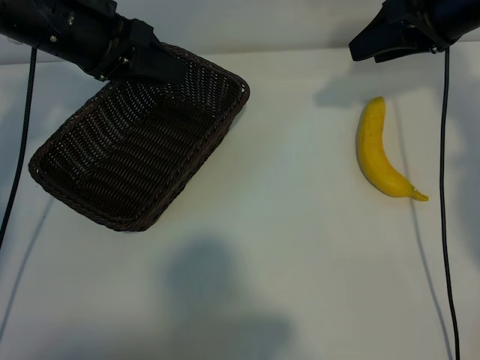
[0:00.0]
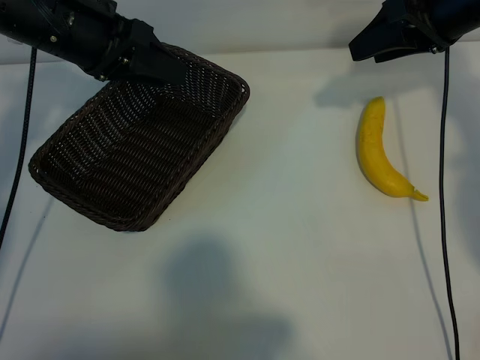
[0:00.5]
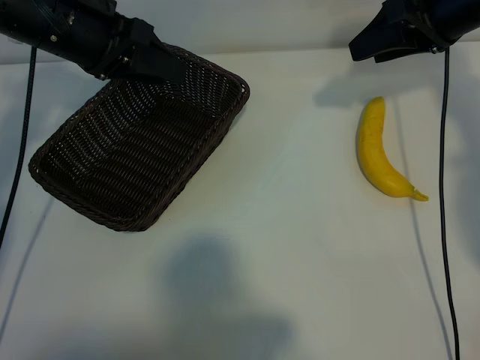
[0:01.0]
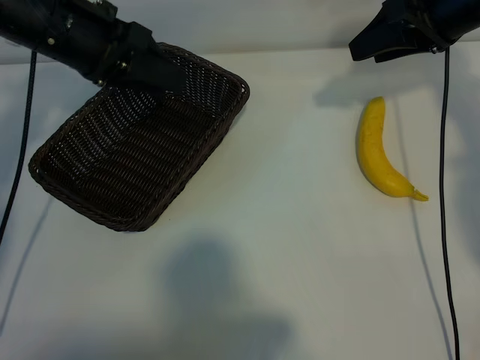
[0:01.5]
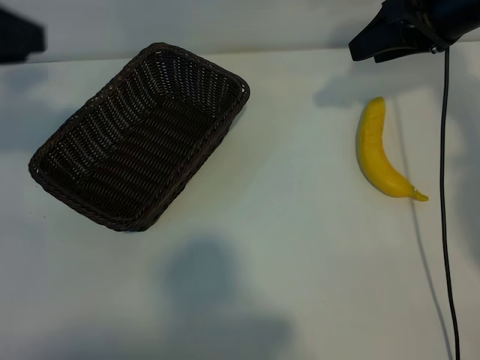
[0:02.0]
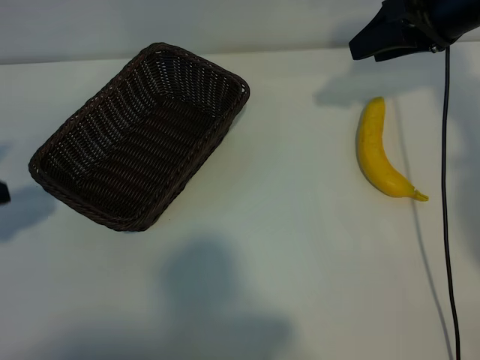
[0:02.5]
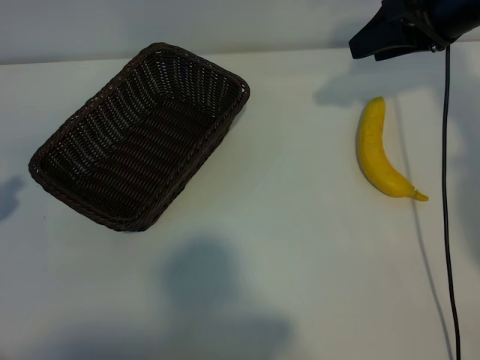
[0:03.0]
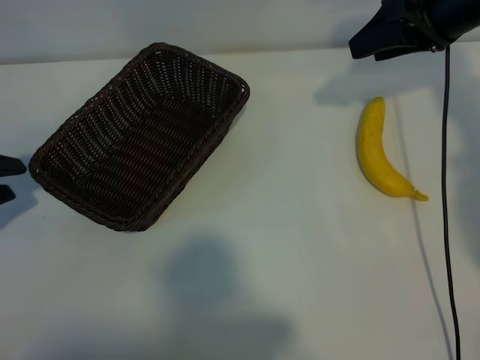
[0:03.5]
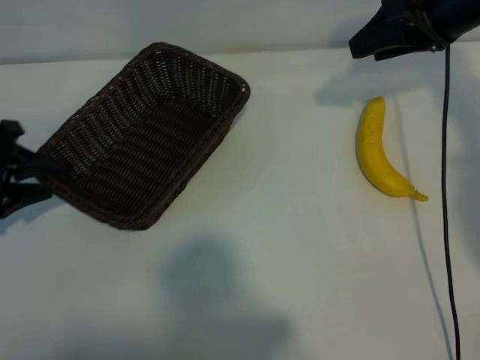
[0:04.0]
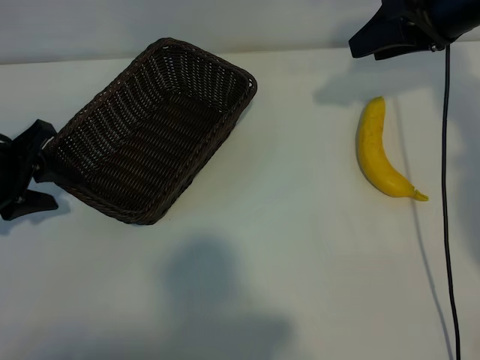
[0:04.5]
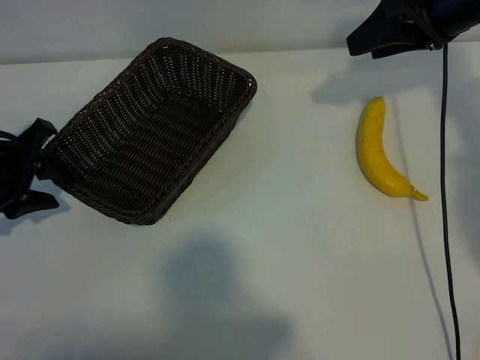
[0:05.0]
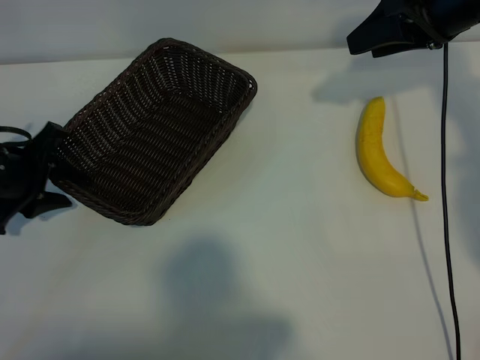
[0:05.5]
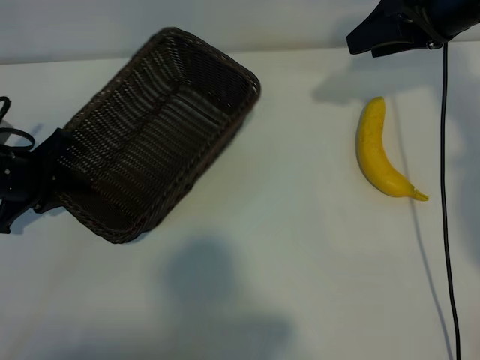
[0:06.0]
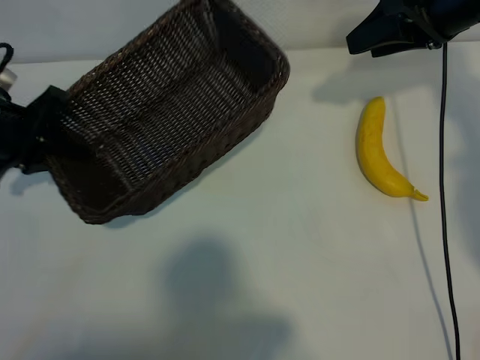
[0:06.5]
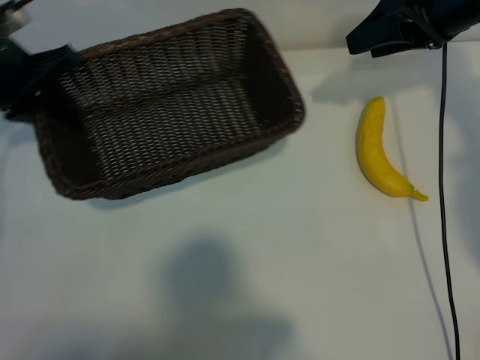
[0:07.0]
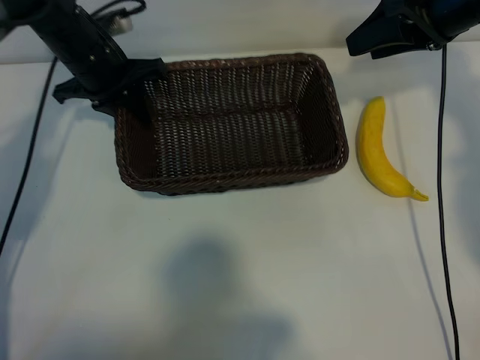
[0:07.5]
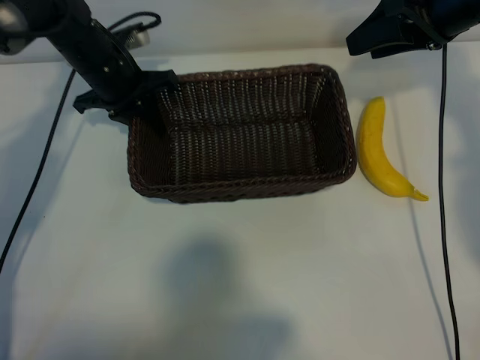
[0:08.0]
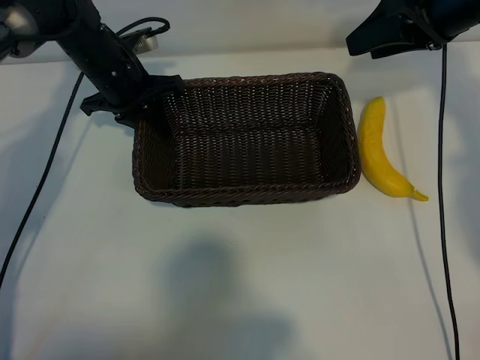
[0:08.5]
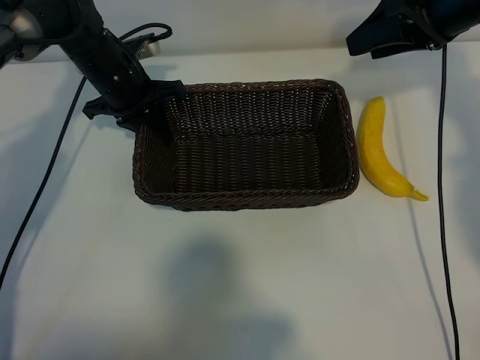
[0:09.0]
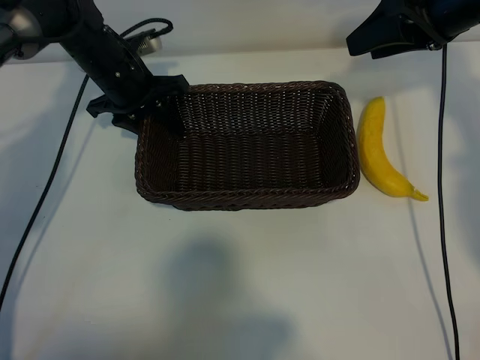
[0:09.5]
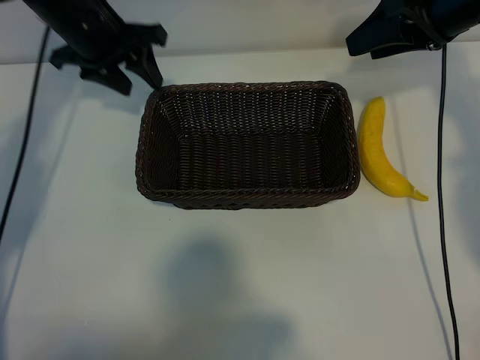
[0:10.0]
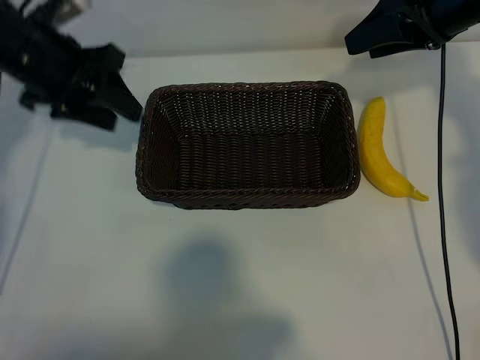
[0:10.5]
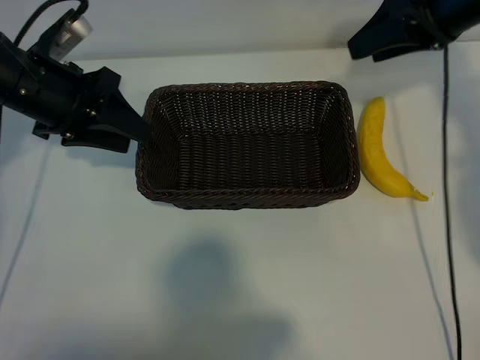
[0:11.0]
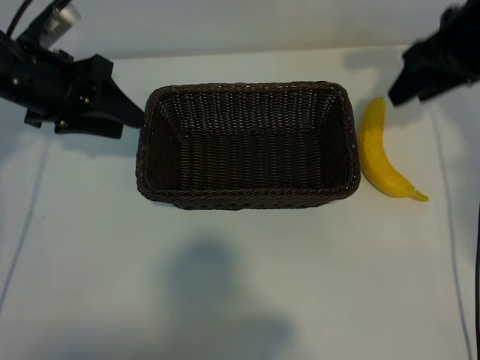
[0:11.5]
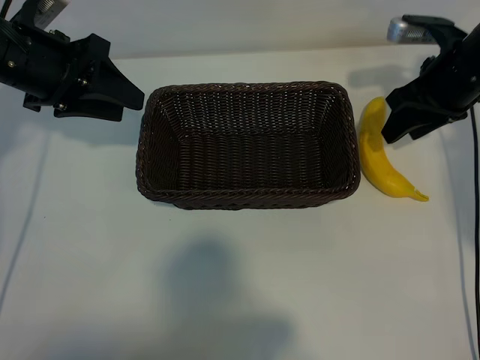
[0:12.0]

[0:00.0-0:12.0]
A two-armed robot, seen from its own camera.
Task of the whole recording: pick up the banana and put it into the basket.
Step, 0:01.0 to 0:06.0: Grasp the basket with the left gripper.
Step, 0:06.5 to 0:09.5: Place the basket in the center of the table with the left gripper.

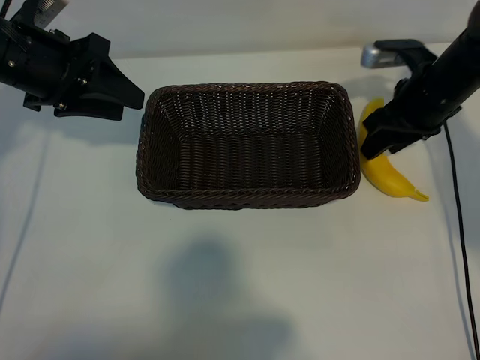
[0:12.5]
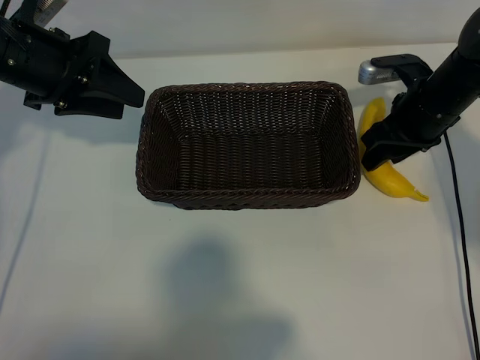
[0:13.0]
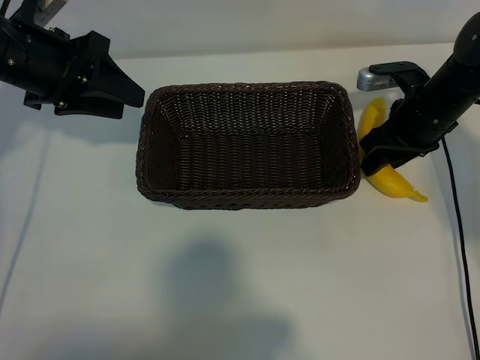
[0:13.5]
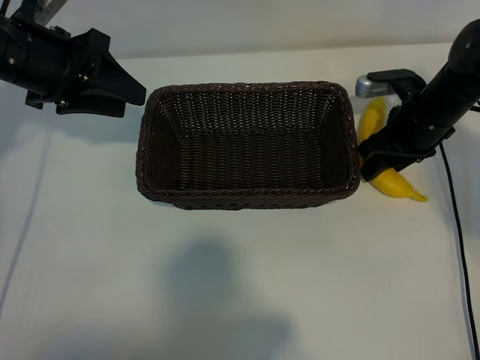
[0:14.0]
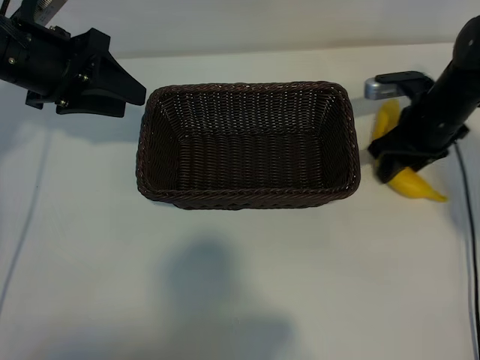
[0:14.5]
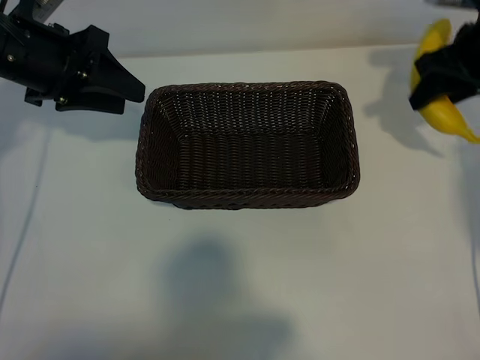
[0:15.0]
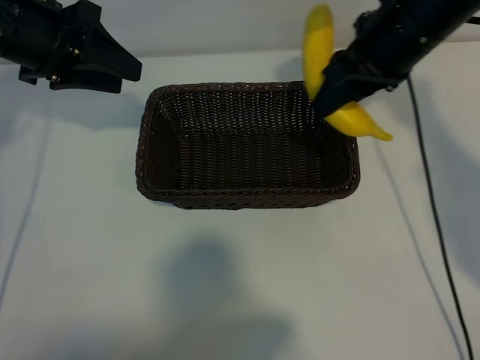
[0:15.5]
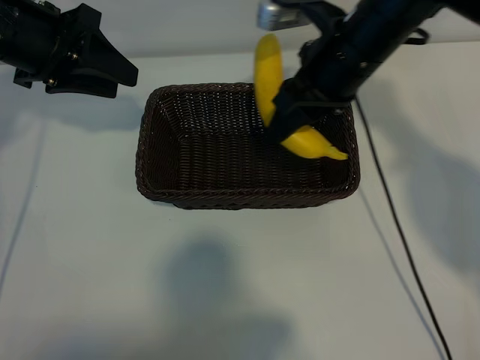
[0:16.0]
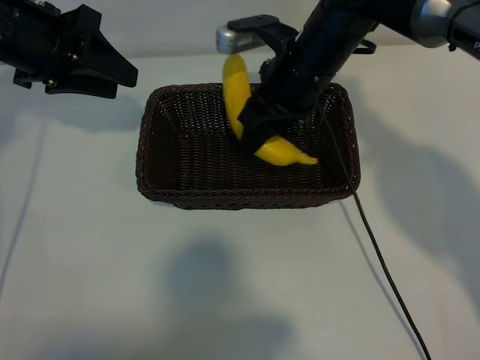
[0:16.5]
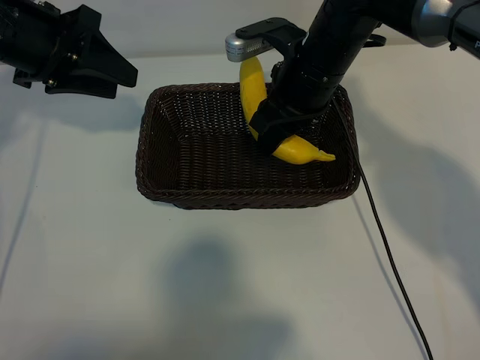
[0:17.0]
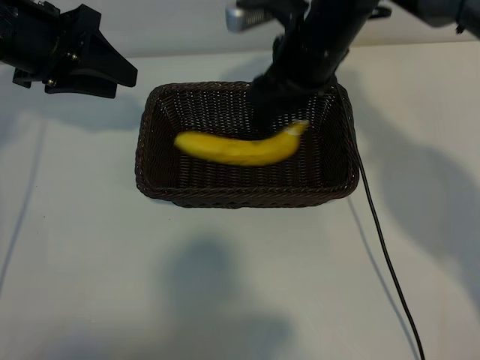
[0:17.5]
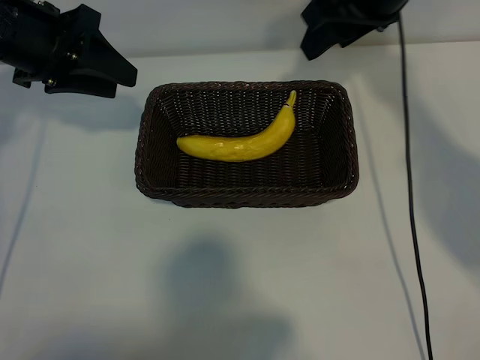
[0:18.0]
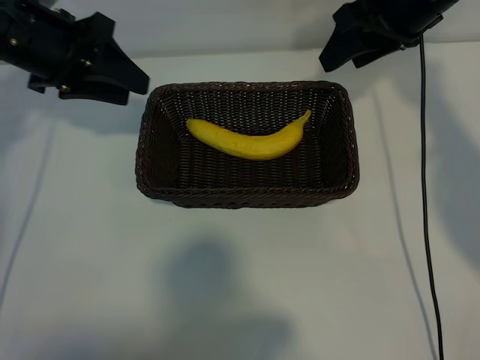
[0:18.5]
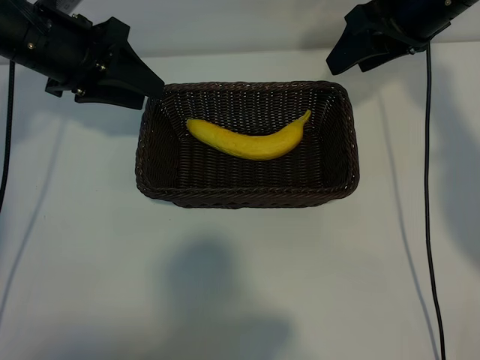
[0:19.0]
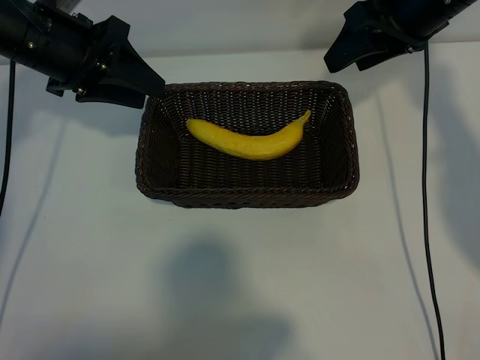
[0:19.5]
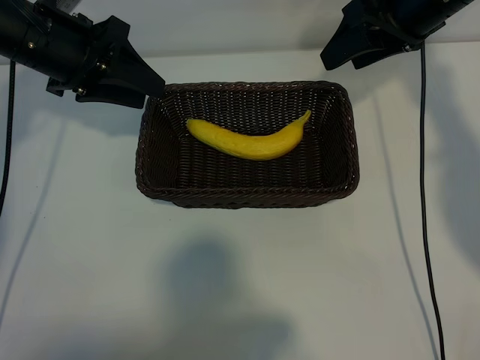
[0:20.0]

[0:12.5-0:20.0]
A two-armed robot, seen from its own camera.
Task of the whole recording: pick up the banana and put it into the basket.
Step, 0:14.5 to 0:17.0: Place the banana in the basket with right gripper.

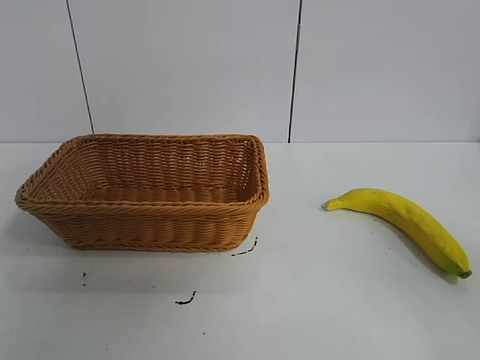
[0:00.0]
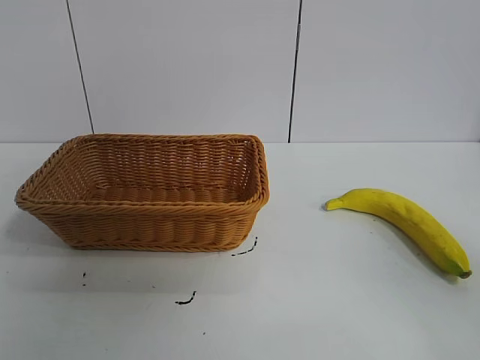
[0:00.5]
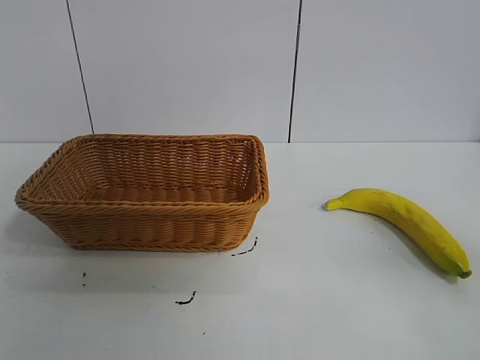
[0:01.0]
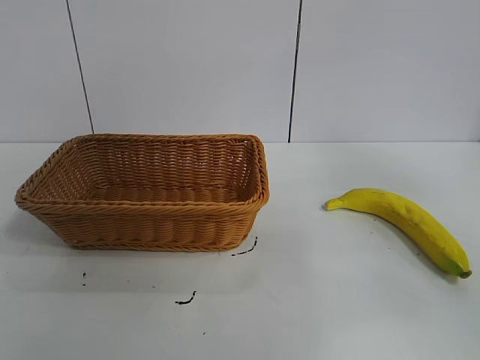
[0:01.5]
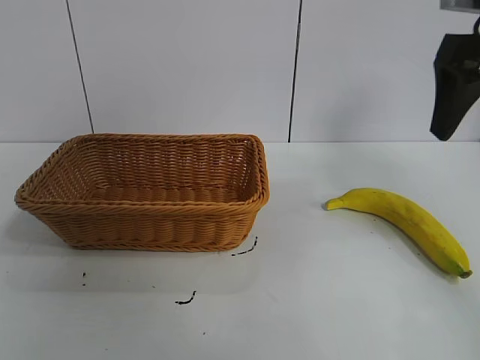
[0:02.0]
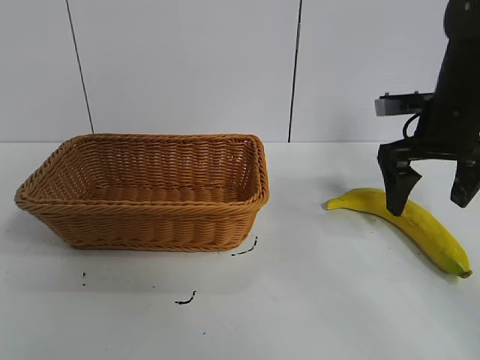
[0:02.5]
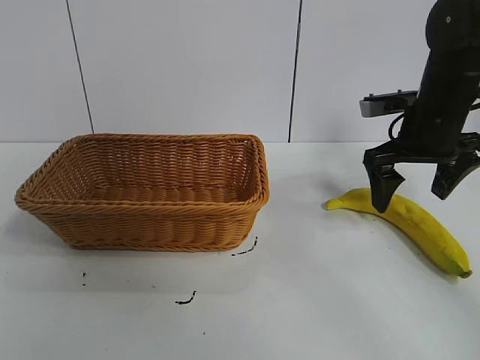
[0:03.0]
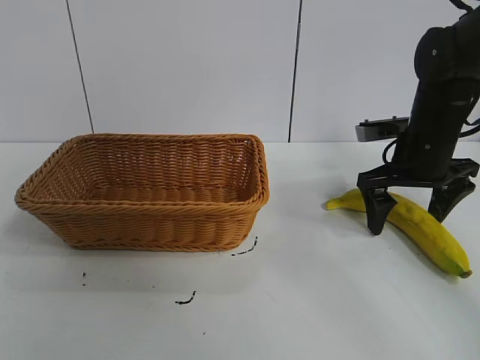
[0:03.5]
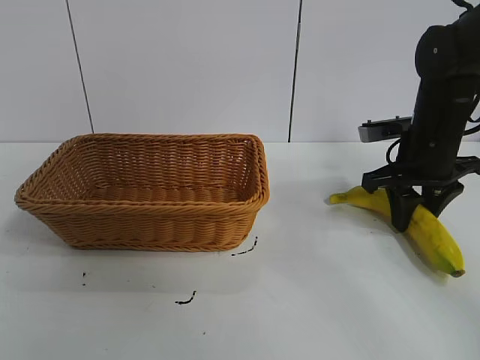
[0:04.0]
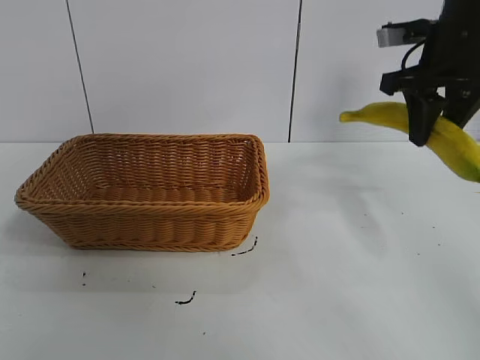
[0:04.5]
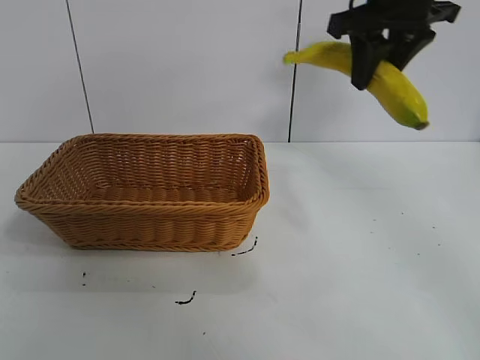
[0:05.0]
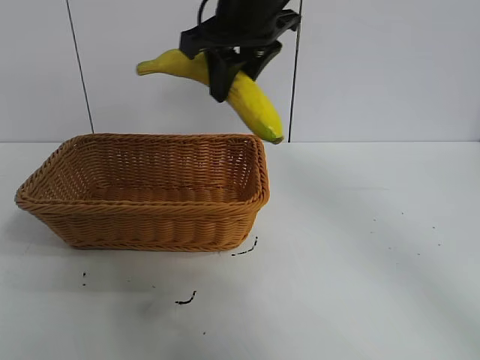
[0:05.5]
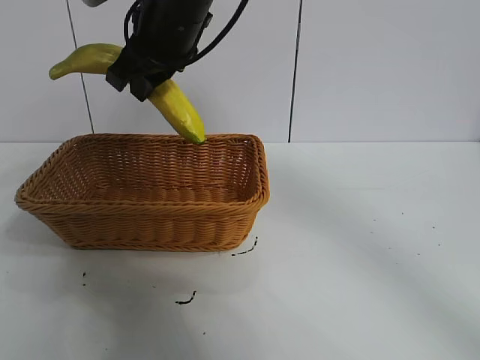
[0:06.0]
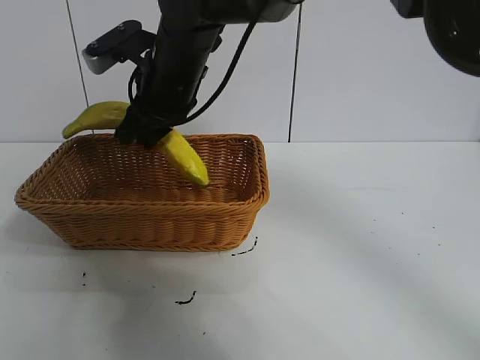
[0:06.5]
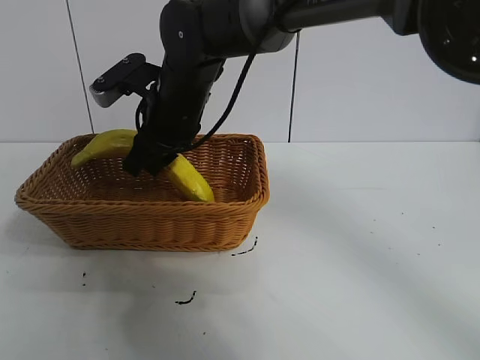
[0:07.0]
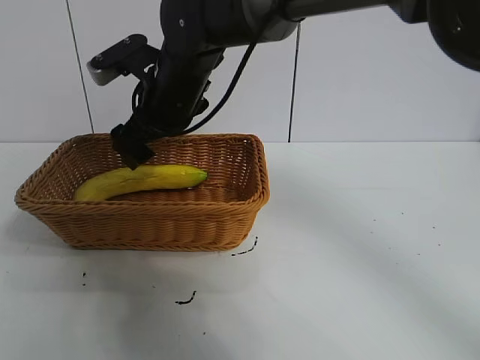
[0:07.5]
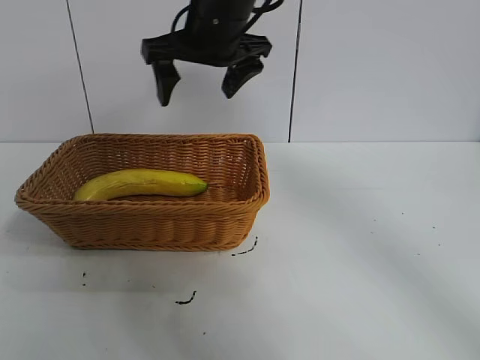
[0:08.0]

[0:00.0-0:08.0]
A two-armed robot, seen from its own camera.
Task of the whole recording: pick up the banana and put it into the basket.
Step, 0:01.0 to 0:03.5: Grasp the banana with right gripper.
Step, 0:04.0 to 0:07.0: Place the banana in the basket with right gripper.
